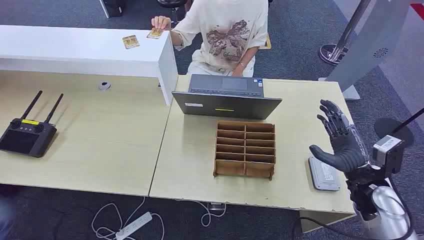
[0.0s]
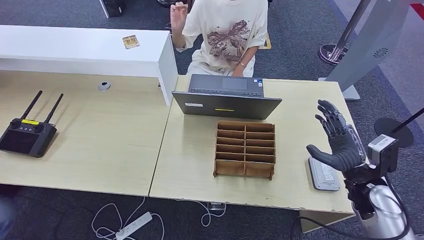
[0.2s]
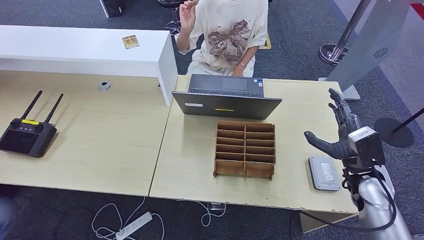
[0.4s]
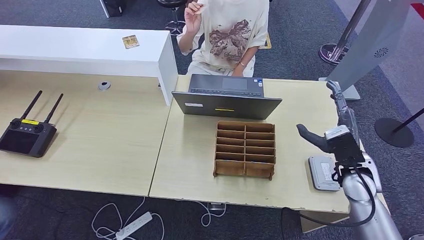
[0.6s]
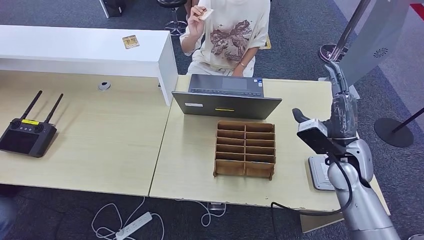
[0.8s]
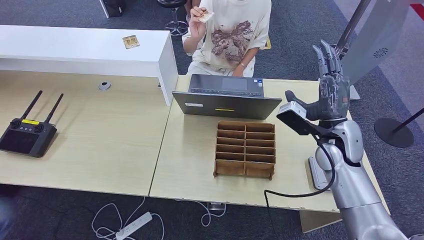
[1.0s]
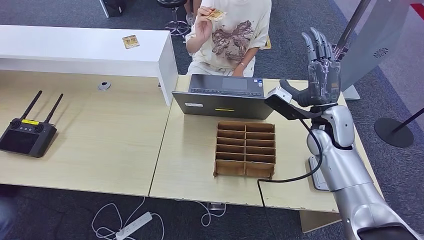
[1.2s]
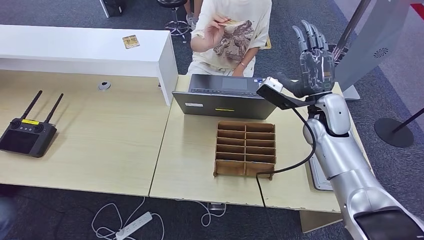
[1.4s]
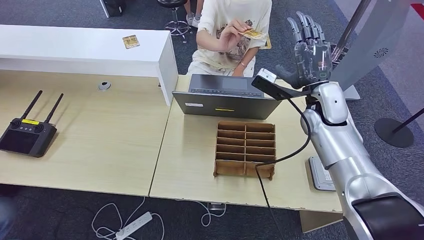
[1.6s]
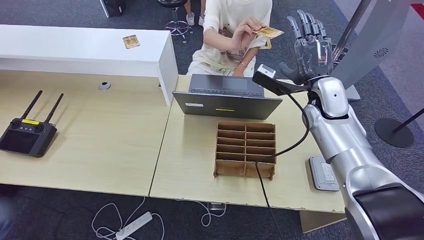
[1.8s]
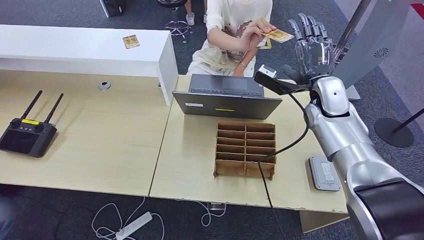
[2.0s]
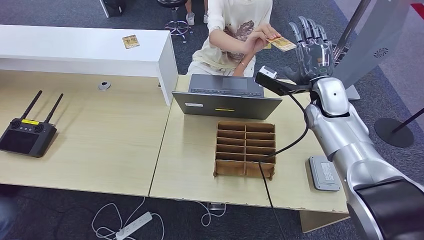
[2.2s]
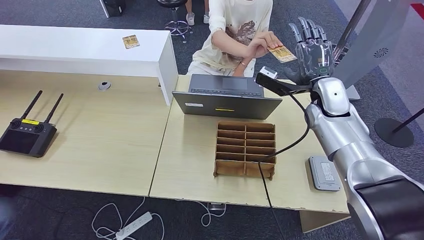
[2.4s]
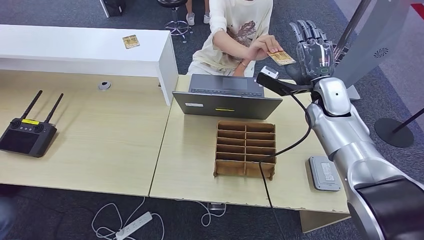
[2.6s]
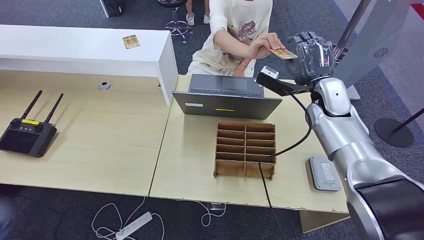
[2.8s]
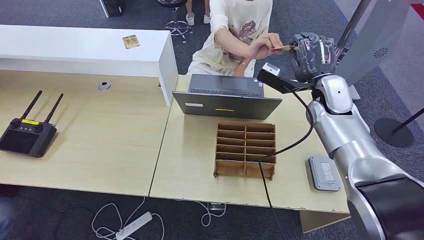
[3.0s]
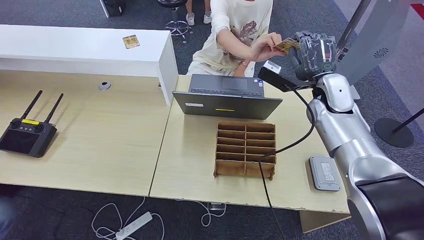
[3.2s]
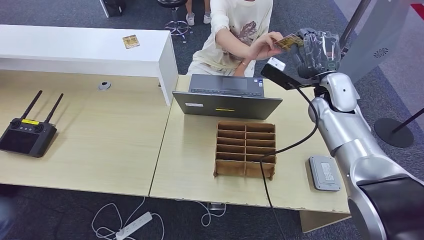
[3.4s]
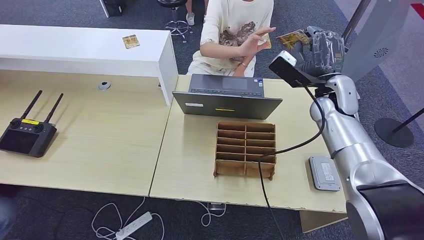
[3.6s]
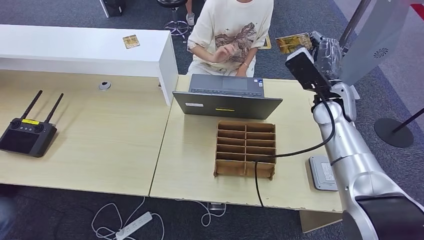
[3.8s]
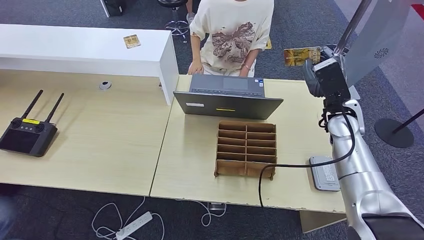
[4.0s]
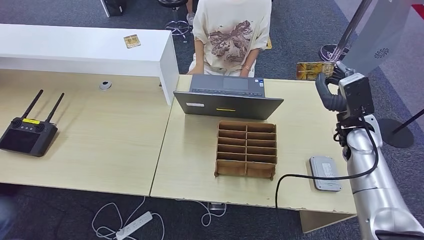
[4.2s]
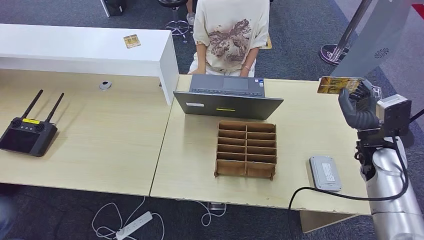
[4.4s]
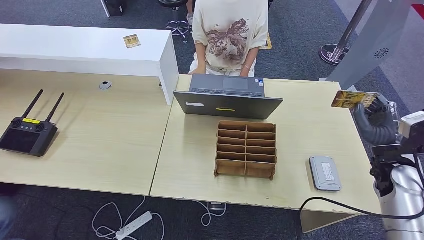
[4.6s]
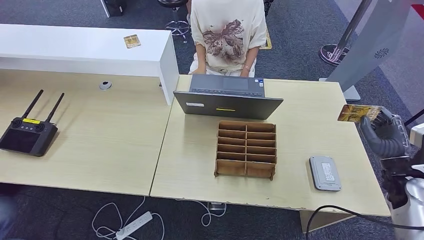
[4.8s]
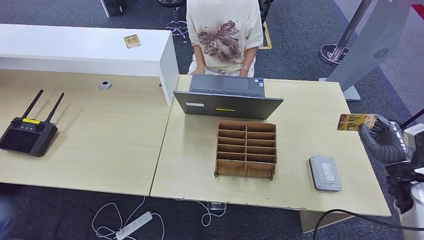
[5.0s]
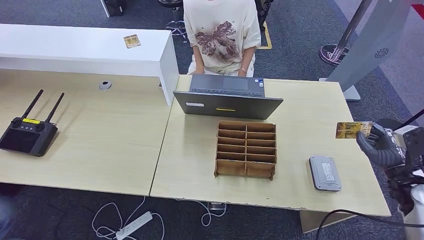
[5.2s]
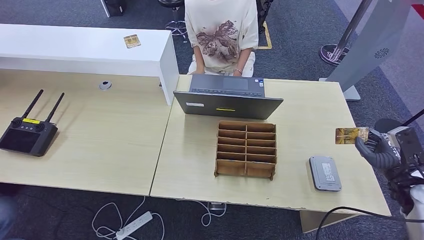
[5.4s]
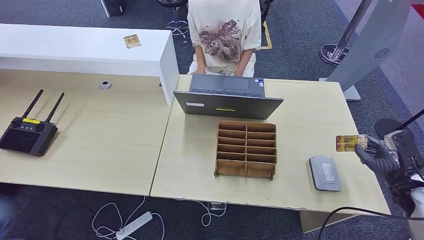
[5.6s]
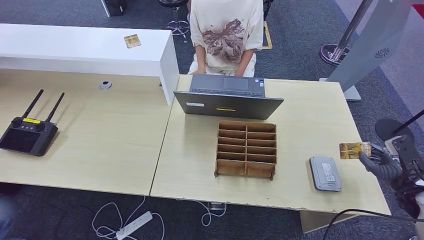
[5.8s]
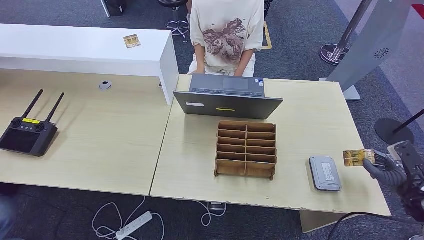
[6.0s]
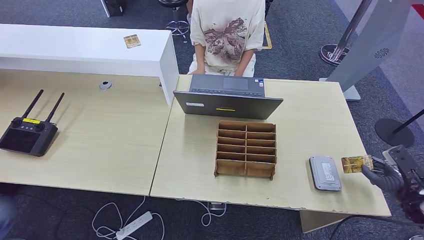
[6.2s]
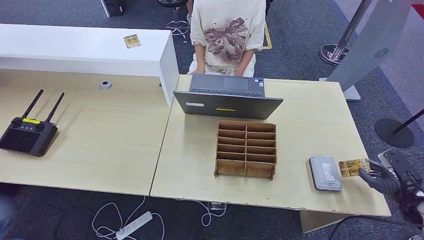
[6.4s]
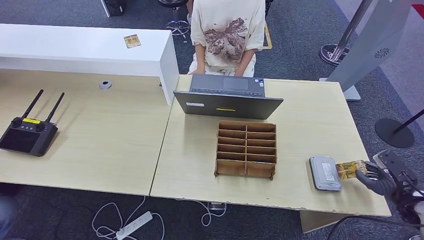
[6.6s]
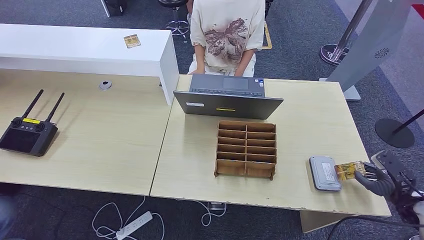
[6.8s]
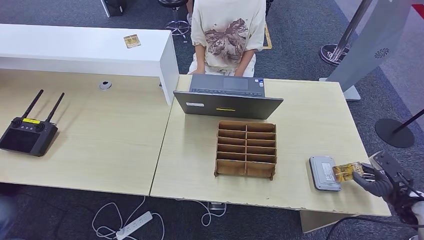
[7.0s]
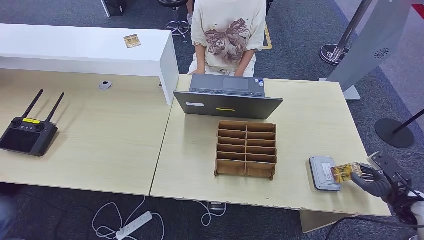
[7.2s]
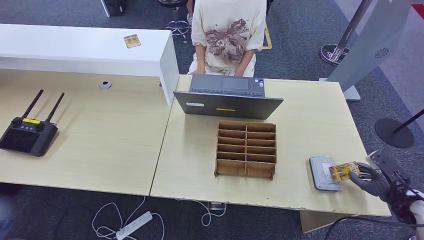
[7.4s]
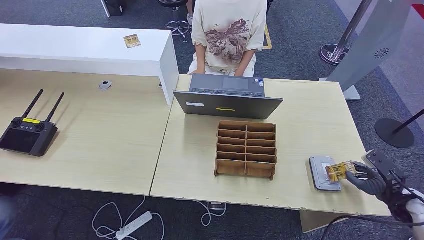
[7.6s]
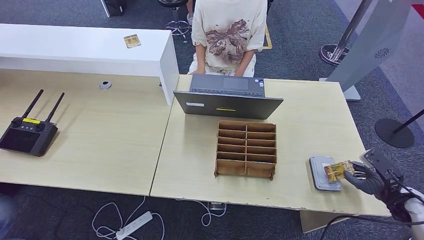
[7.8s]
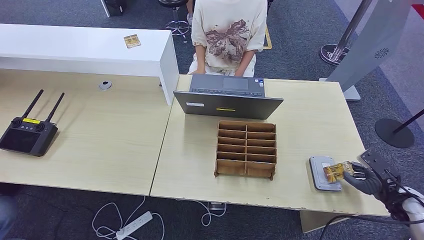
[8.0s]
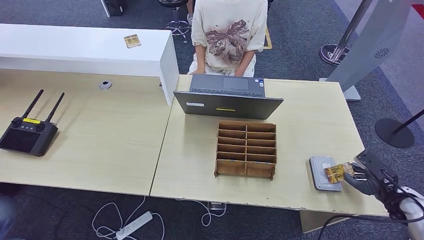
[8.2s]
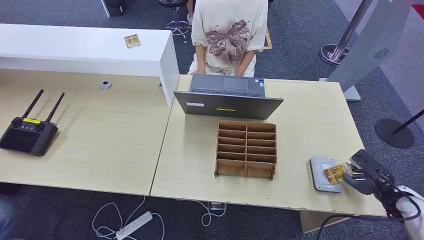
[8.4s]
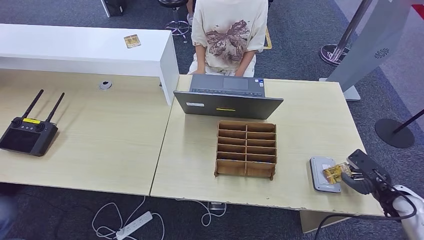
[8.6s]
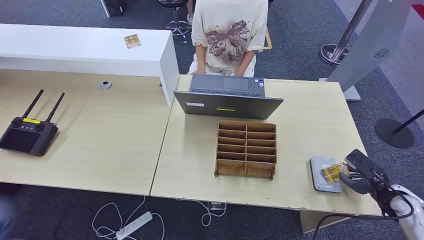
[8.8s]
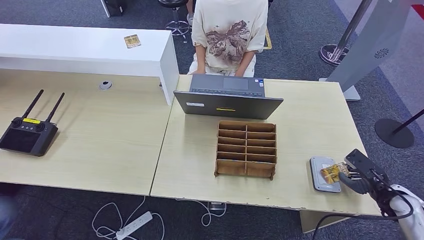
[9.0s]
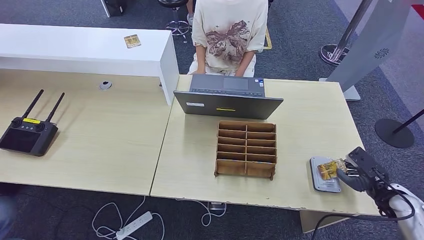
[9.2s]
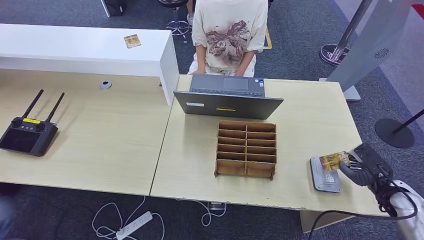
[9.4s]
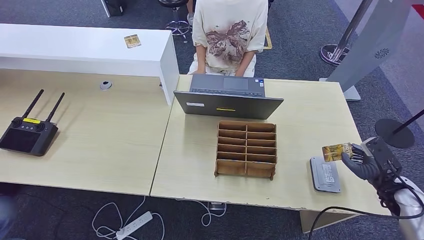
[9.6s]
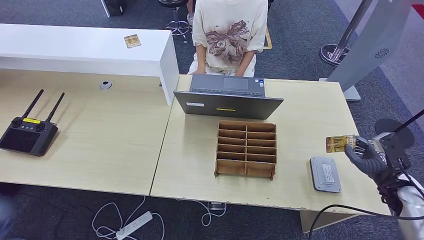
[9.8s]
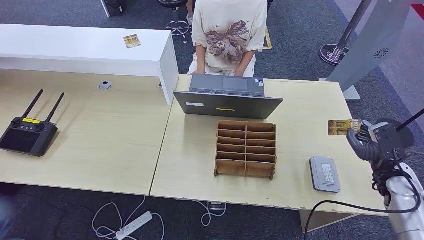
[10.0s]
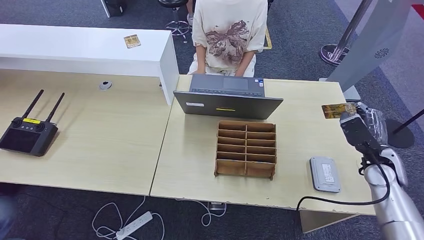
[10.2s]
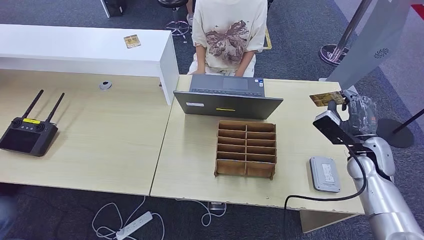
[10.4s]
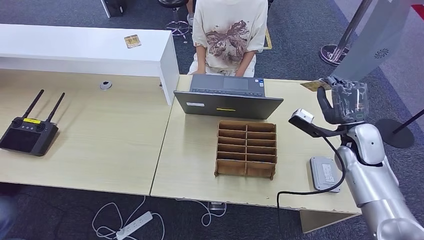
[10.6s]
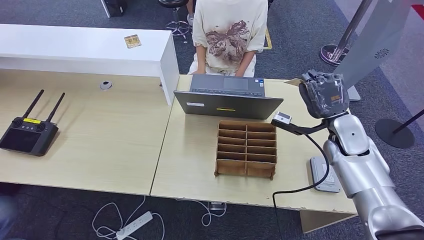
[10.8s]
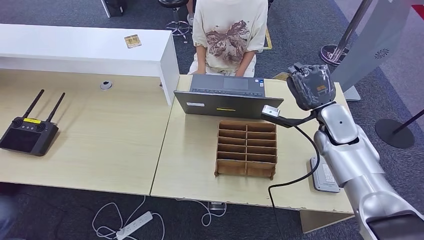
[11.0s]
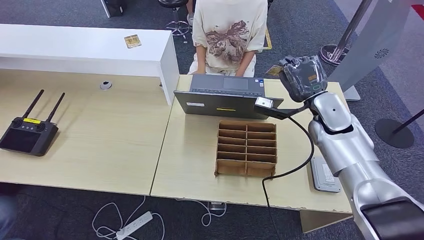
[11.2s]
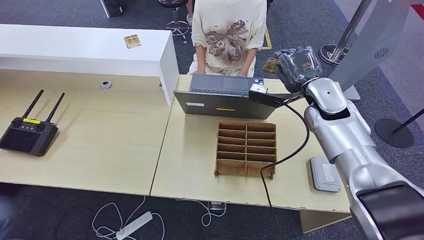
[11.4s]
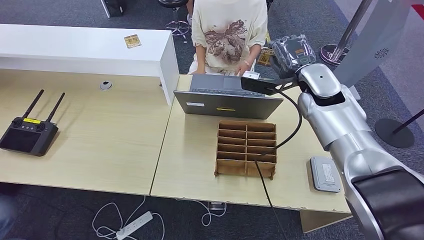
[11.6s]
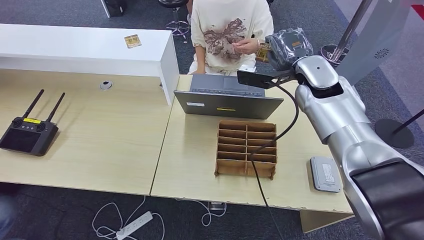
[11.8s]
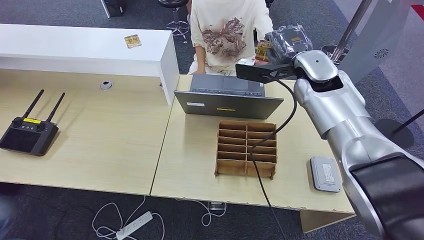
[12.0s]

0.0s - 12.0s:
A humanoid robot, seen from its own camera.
Step, 0.0s - 3.8s: Take the ID card from the person's hand.
Step, 4.0s - 8.8s: Place the ID card on the card reader.
1.6s - 3.0s: The hands make only small movements.
3.0s - 4.4s: The right hand travels to the right, backward and downward by roughly 20 cm.
4.4s - 6.0s: The right hand heads to the right, downward and backward, covering roughly 20 cm.
6.0s - 7.6s: The hands stay close to where they were, moving slightly.
7.6s - 9.0s: The hands make only small movements.
9.0s - 10.4s: The right hand goes some 15 cm to the left, upward and forward.
10.4s - 12.0s: The right hand moves to the left, upward and forward, about 25 cm.

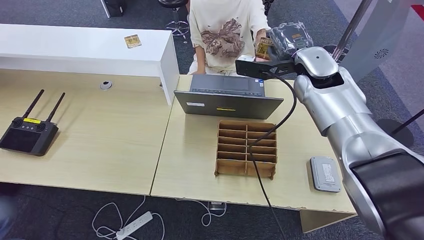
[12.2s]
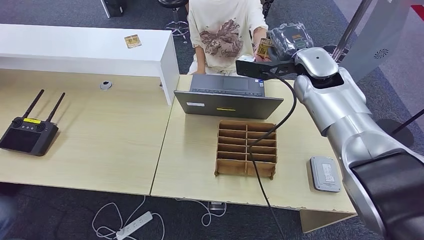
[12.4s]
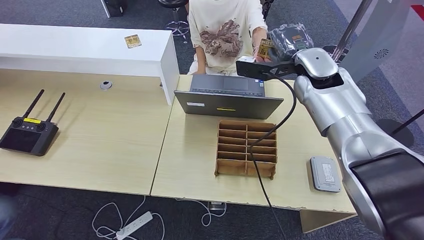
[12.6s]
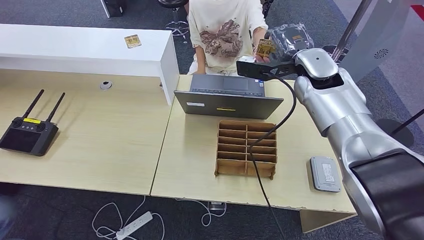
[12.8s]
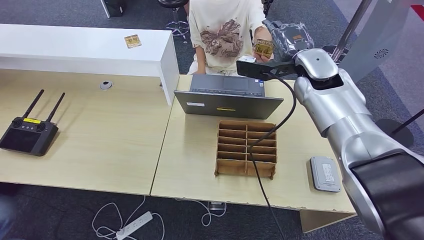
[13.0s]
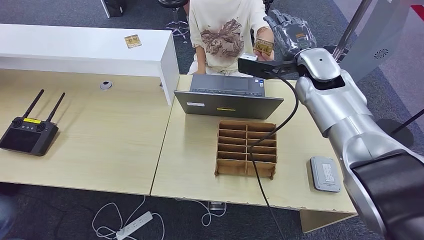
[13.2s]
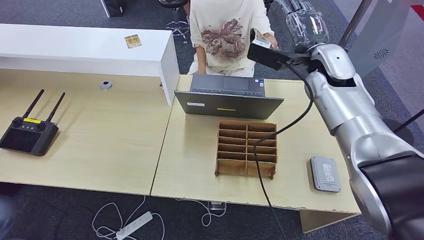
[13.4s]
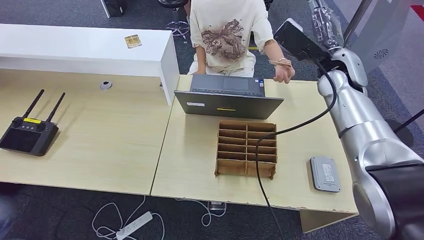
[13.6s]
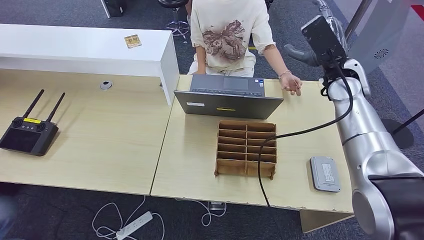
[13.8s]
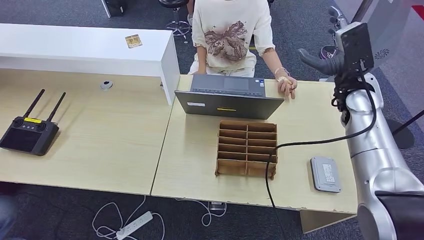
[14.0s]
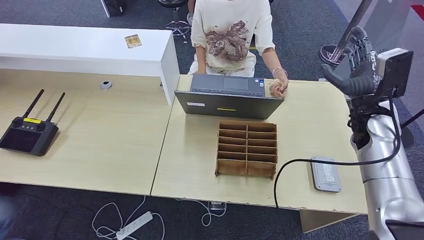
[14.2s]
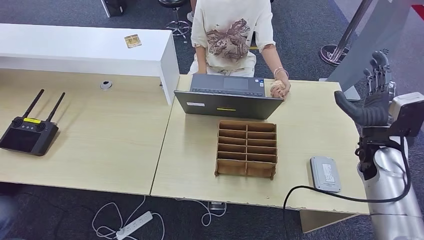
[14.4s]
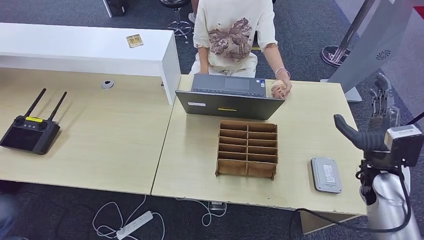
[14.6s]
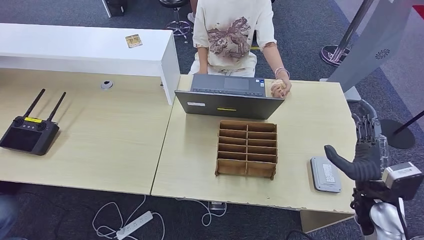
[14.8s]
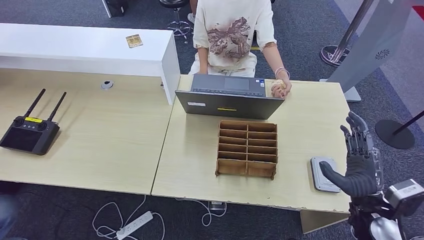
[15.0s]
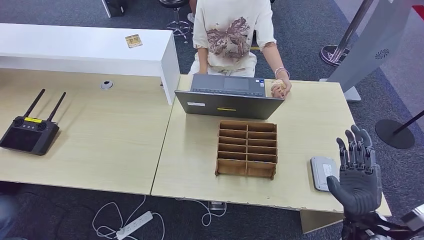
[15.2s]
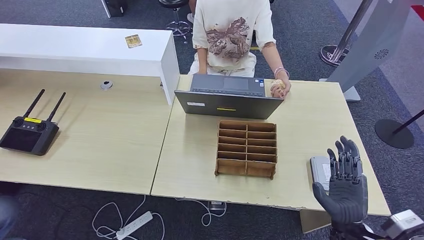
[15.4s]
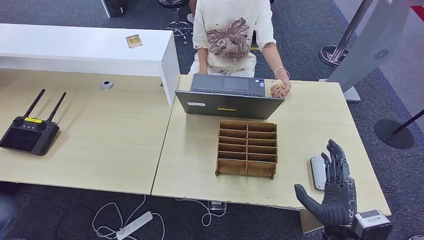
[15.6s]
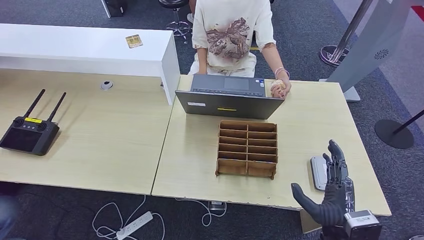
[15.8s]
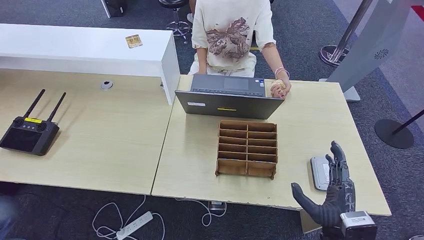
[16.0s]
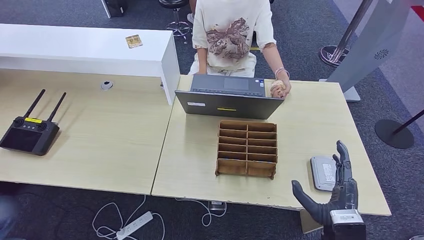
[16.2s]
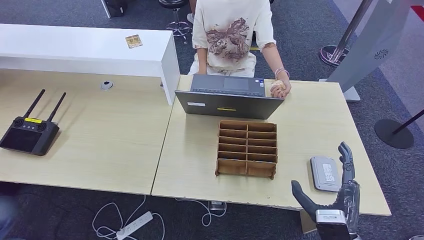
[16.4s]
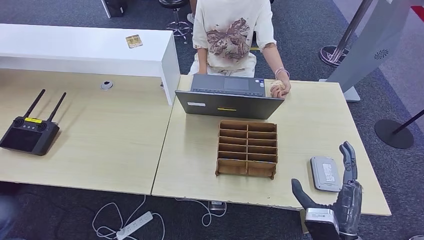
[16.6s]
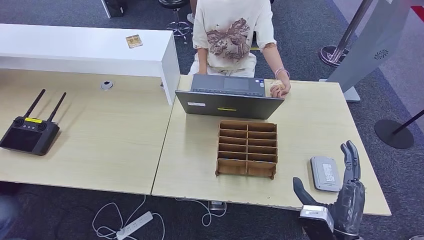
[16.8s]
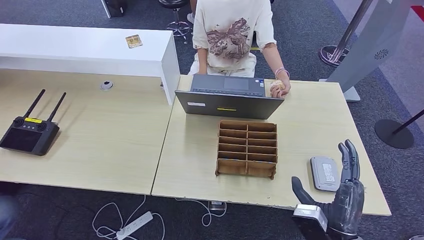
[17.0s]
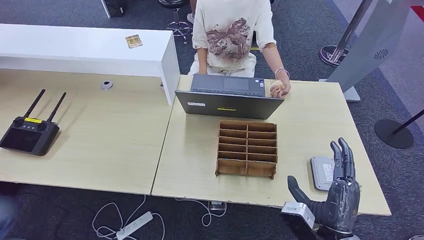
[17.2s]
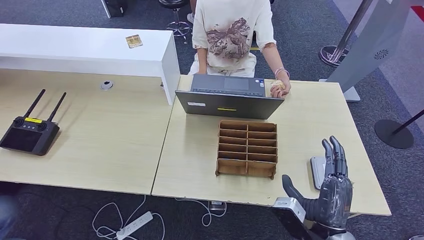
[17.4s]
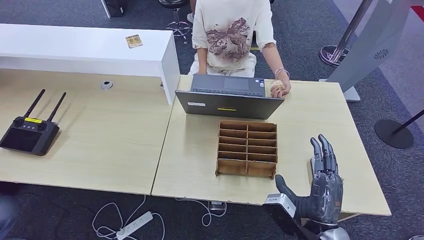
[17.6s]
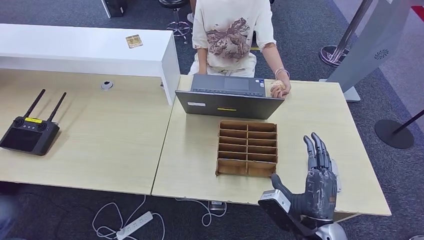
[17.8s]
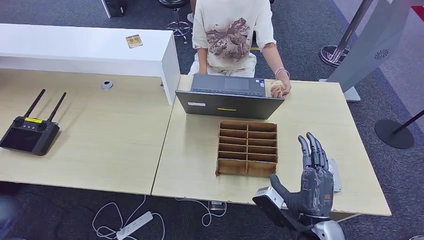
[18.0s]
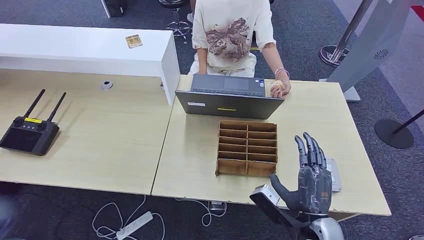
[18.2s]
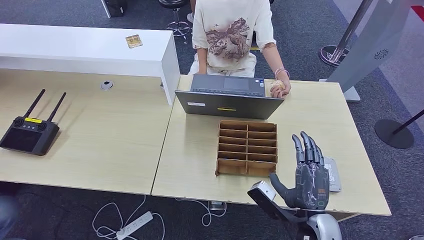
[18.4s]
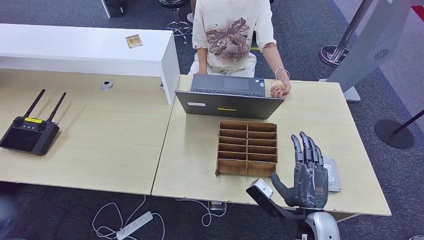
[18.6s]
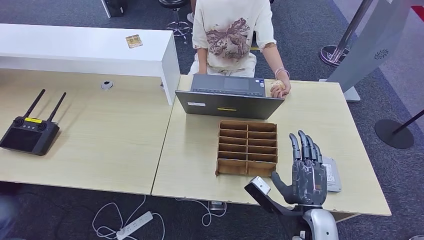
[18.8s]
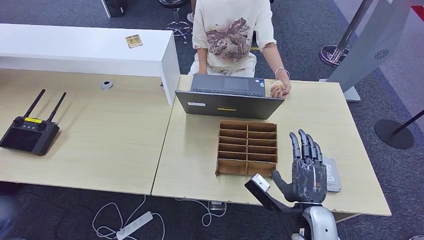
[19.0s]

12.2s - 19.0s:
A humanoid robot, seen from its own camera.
12.2s - 13.6s: The right hand heads to the right, covering roughly 5 cm.
13.6s - 15.0s: The right hand shifts approximately 30 cm backward and downward.
15.0s - 16.2s: The right hand goes about 10 cm to the left and backward.
